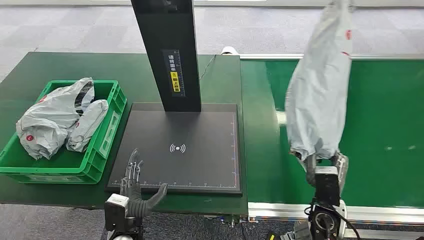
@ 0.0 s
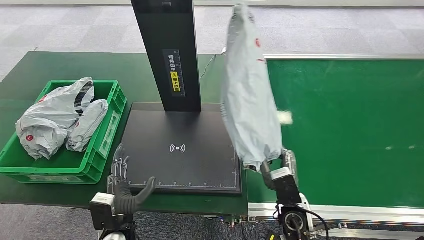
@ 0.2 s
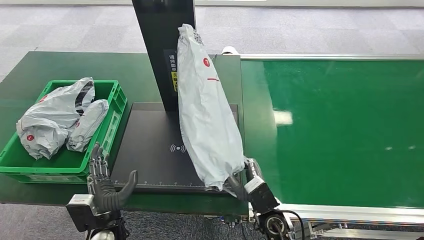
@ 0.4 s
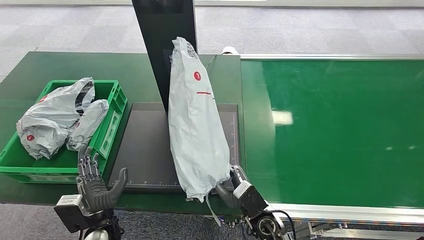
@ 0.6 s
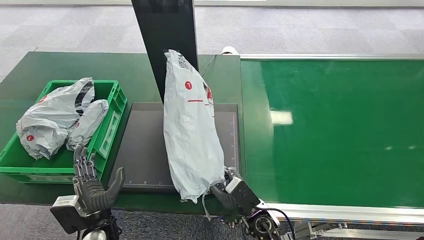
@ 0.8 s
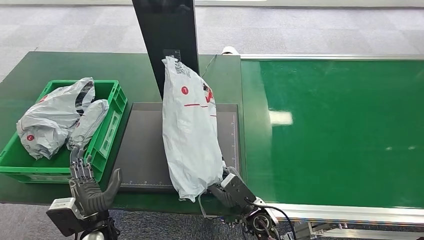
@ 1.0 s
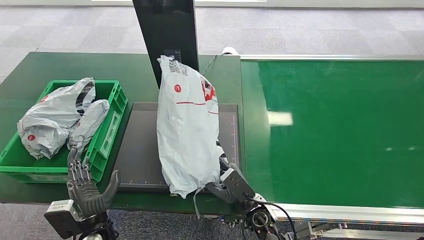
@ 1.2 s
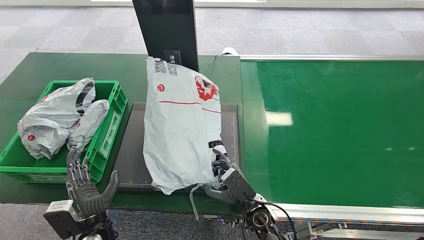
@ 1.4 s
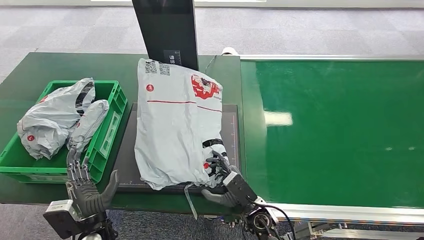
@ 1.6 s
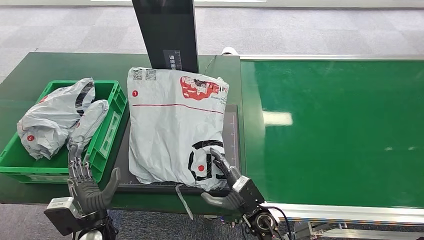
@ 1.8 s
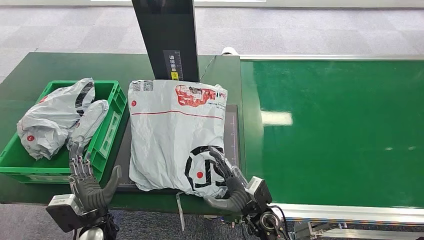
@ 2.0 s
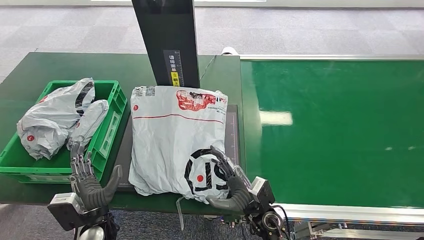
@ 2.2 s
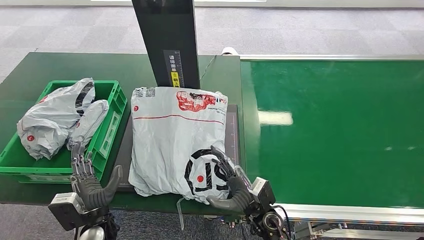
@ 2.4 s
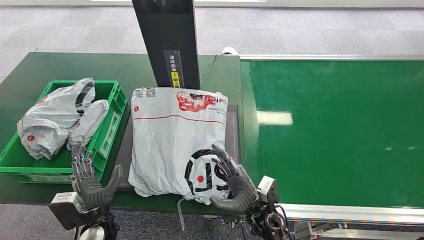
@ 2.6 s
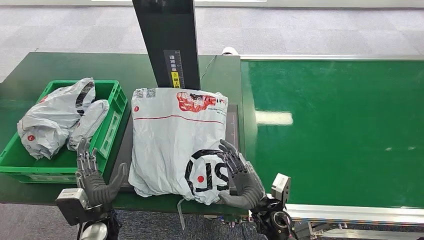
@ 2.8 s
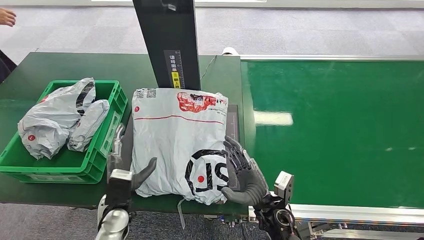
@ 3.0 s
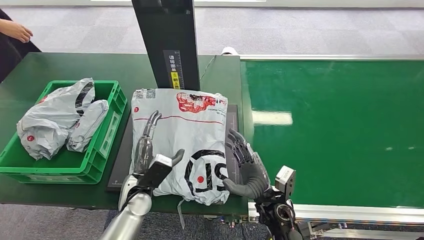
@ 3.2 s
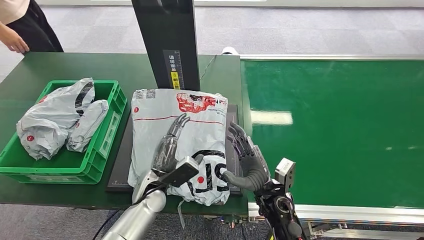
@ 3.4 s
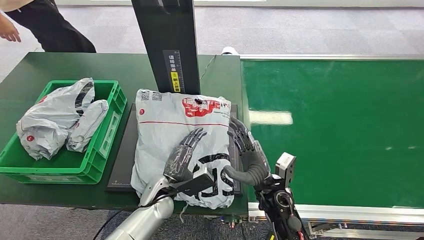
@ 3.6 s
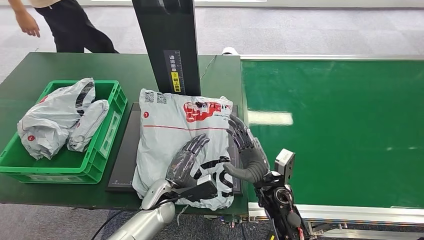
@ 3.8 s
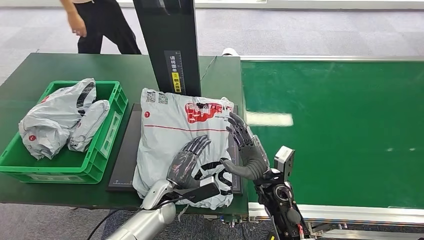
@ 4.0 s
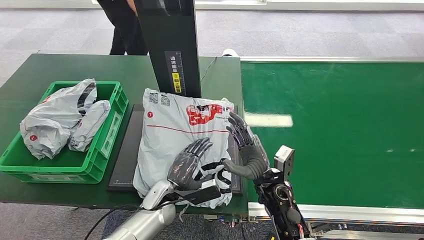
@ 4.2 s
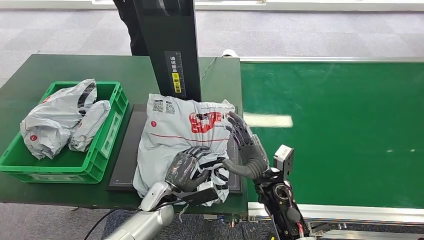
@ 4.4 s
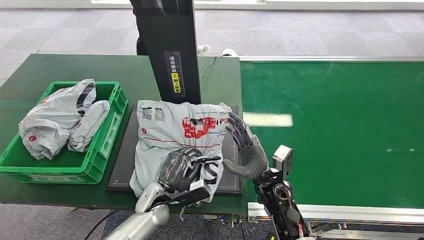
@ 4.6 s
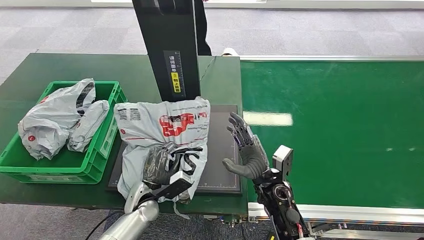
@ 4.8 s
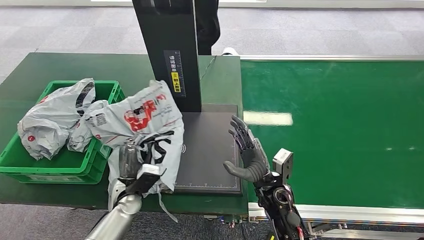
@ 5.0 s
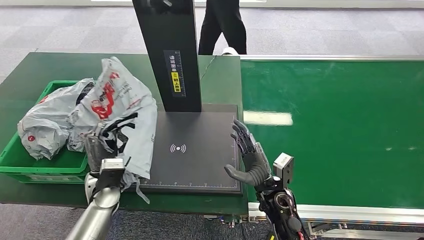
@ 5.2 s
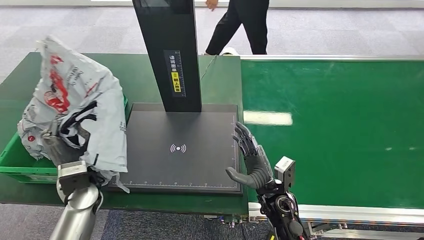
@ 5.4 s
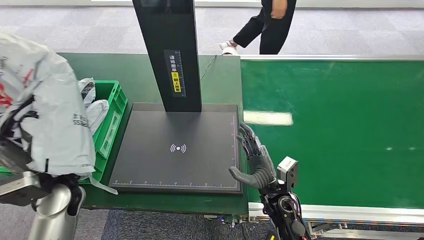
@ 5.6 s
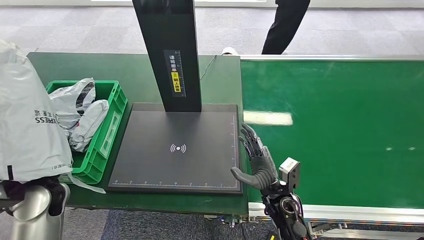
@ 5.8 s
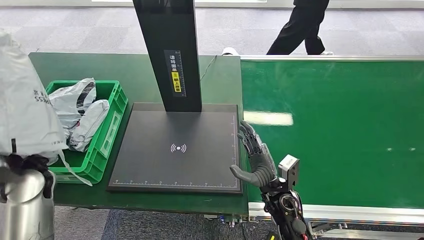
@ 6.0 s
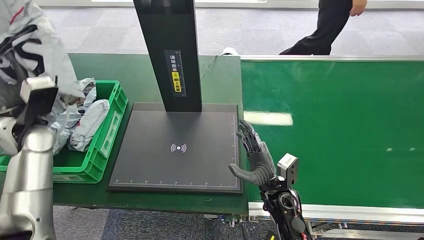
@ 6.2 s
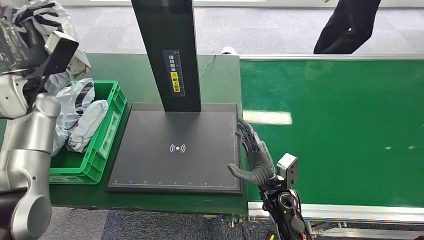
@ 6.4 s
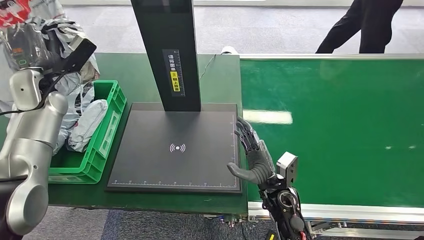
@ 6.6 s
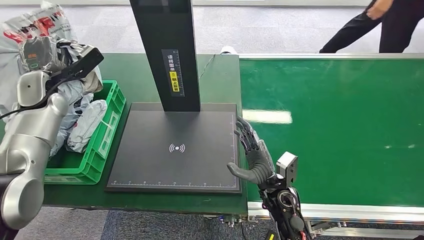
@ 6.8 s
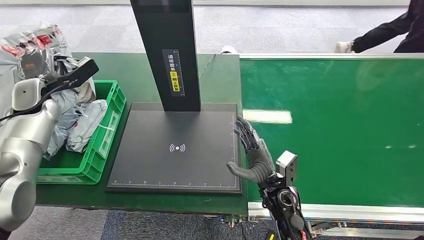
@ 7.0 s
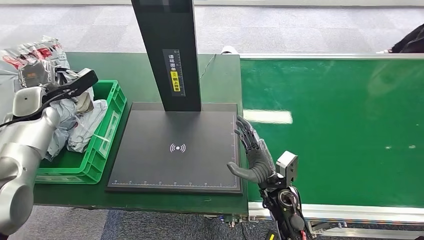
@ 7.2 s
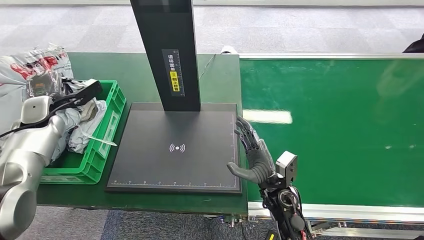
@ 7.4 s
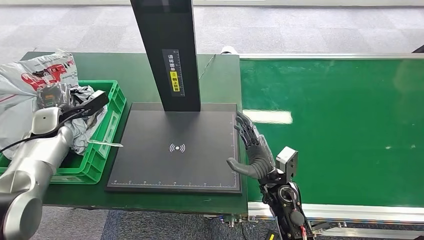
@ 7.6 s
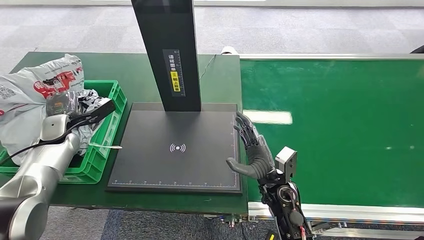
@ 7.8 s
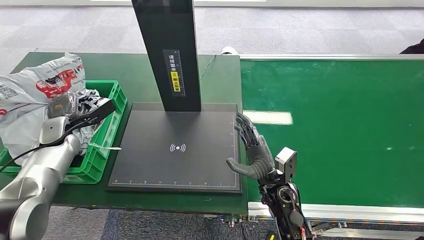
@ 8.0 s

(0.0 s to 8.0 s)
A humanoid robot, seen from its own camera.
Step, 2.8 s - 3.0 s: Place the package onto the inbound machine.
